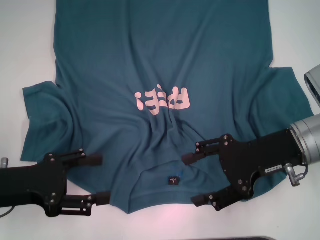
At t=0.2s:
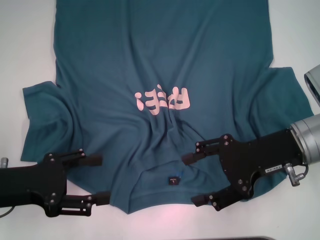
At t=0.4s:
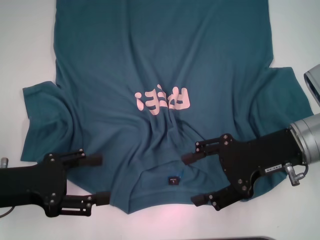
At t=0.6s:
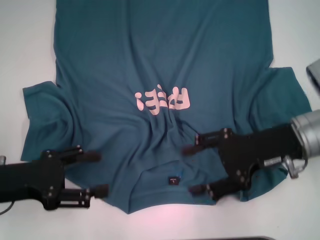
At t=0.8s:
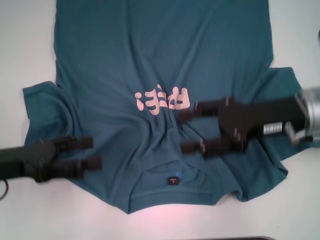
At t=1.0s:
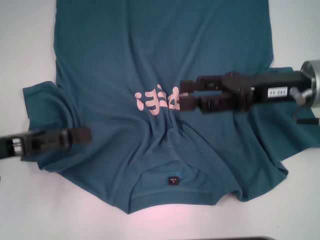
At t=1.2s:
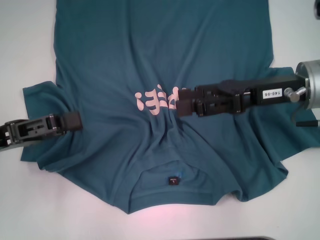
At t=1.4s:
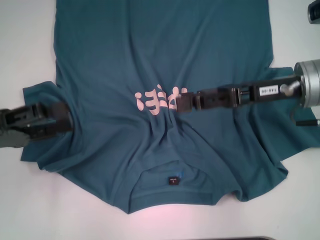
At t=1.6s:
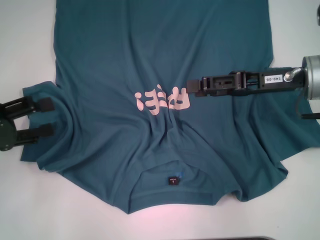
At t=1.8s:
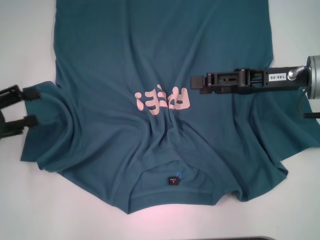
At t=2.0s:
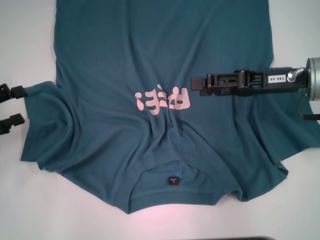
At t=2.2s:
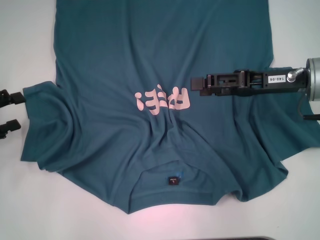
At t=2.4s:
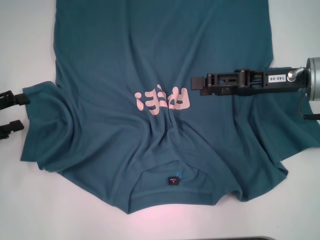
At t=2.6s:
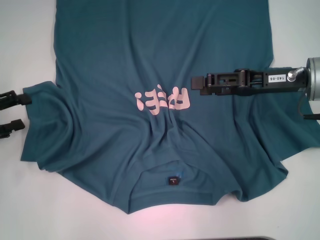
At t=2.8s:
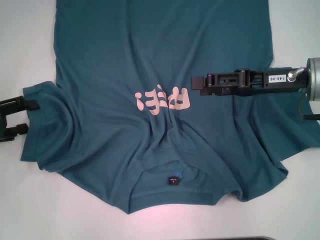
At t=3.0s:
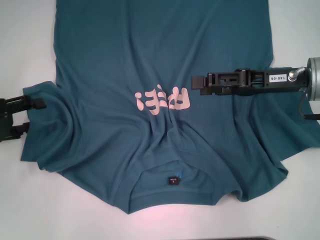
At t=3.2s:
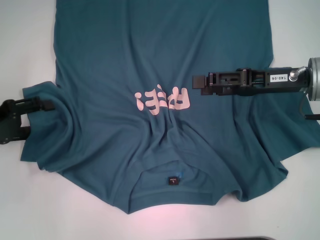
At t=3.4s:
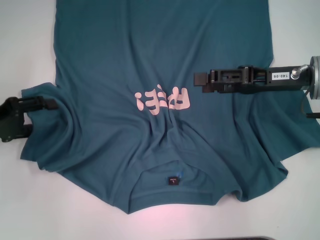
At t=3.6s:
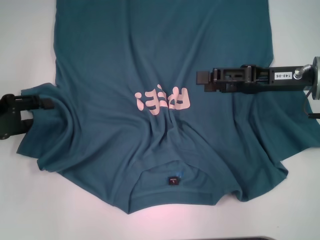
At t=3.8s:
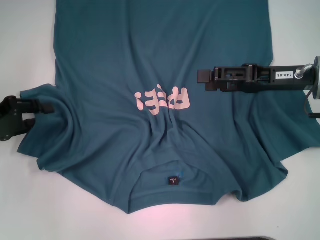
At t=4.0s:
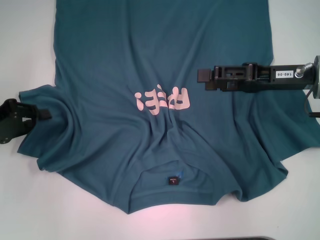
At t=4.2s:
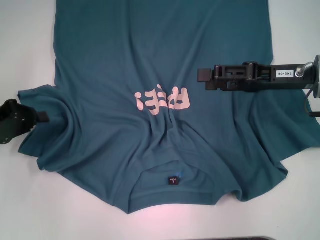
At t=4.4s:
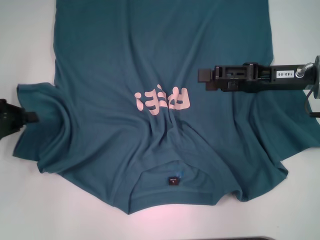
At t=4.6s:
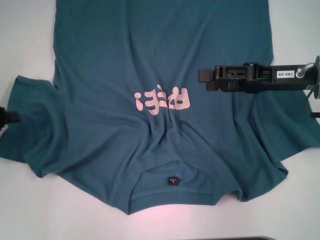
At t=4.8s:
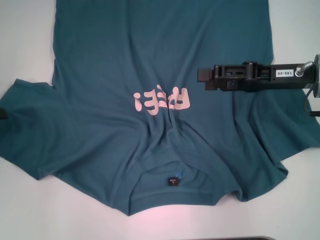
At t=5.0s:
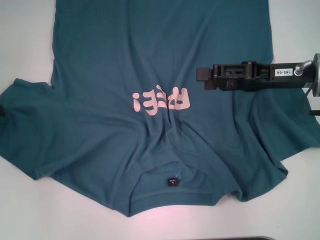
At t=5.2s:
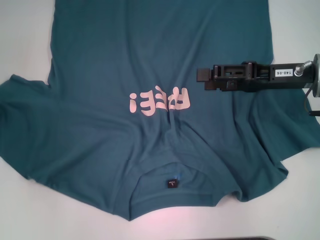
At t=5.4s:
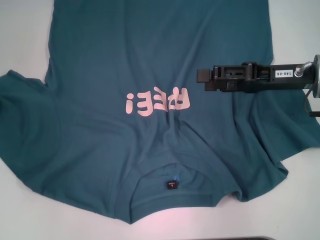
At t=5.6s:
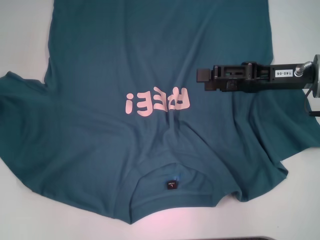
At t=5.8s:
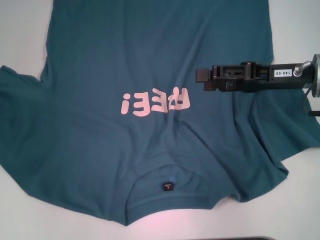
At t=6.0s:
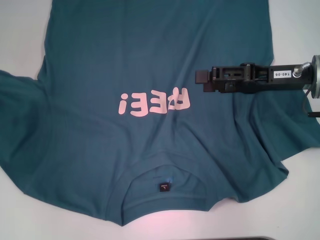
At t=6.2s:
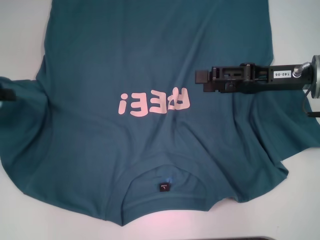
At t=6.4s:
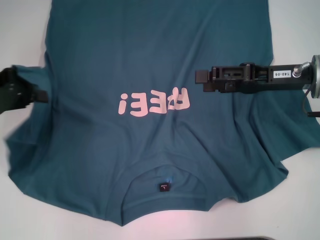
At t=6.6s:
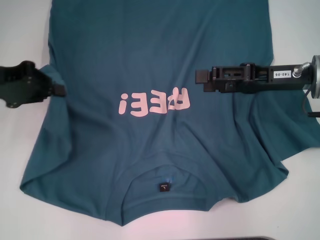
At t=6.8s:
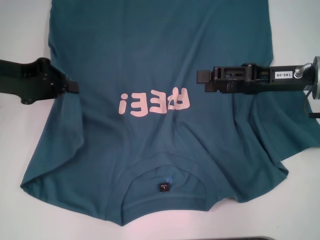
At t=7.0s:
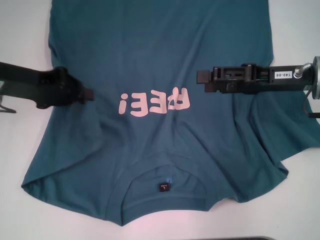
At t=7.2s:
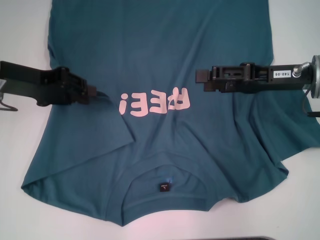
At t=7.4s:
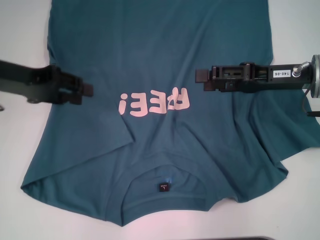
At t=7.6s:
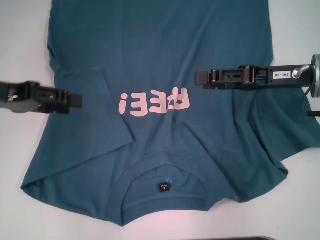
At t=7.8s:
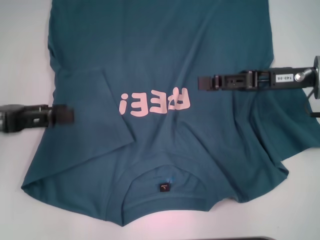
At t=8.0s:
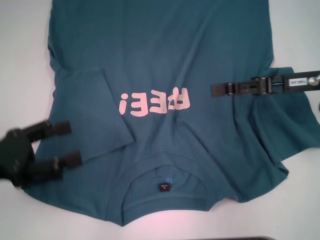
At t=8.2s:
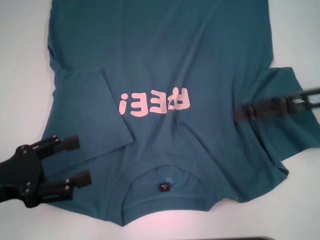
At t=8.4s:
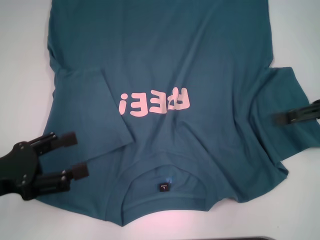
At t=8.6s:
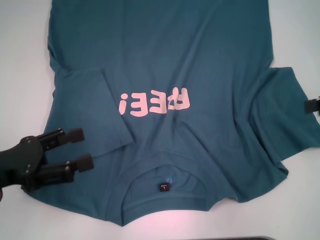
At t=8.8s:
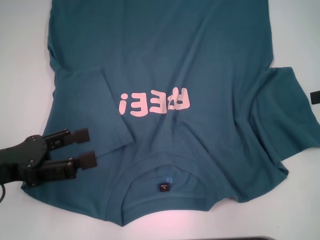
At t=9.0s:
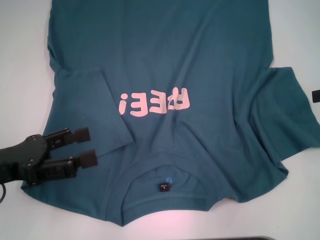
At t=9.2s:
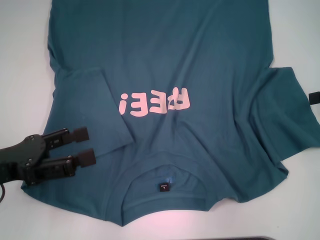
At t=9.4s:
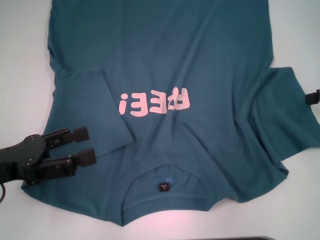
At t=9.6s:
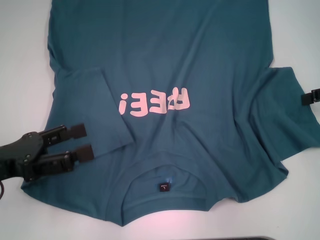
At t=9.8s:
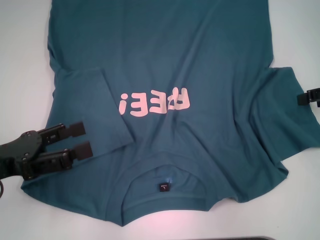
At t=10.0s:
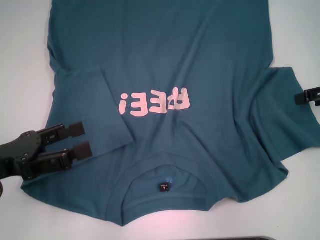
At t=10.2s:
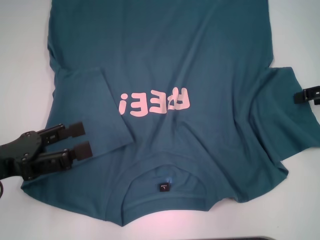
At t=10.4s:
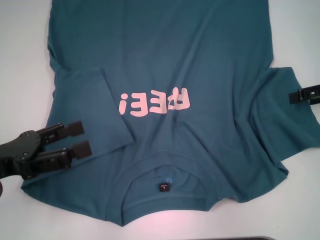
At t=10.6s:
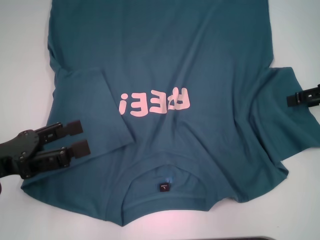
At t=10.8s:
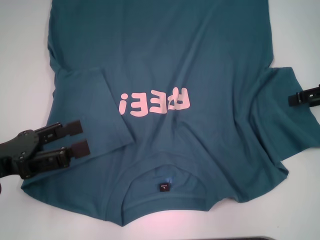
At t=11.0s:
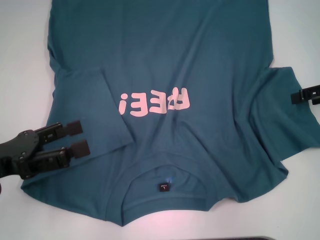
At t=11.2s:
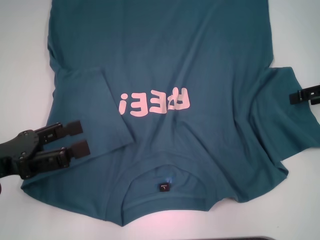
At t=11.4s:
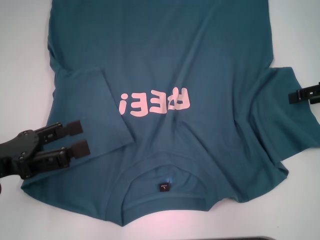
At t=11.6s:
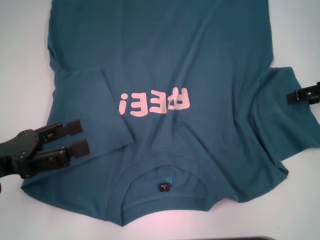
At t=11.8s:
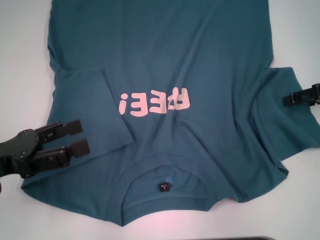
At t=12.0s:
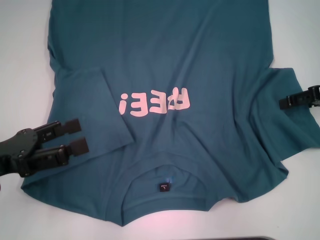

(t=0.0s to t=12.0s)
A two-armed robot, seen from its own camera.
Step, t=0.0s - t=7.2s: Fold the bottom left sleeve with your left hand.
t=0.0s - t=1.6s: The right gripper goes some 5 cm forward. The left gripper heads to the left, covering about 5 cm.
t=3.0s - t=4.4s: The left gripper closes its fingers.
t=4.4s - t=6.0s: The left gripper shifts about 10 cm upward.
t=6.0s - t=7.6s: The left gripper is displaced to the right by roughly 10 cm, and opens its fingers.
t=7.6s - t=9.0s: The left gripper travels backward and downward by about 10 cm, and opens; the right gripper moves to the right, roughly 15 cm.
t=9.0s - t=10.4s: The grippers move only a little.
t=10.4s - t=12.0s: There are only small adjustments of the grippers.

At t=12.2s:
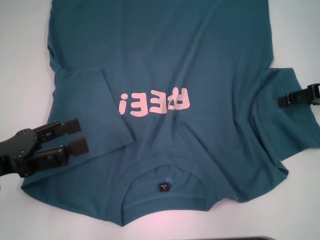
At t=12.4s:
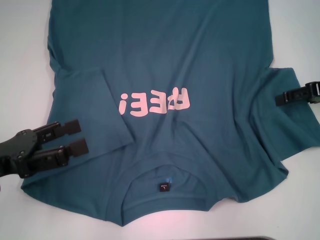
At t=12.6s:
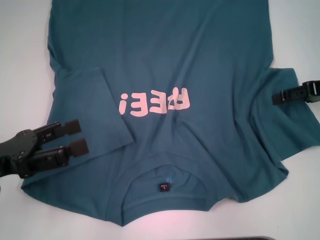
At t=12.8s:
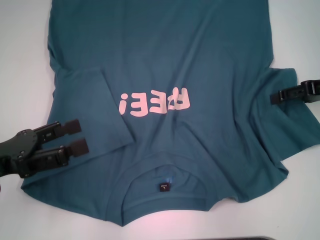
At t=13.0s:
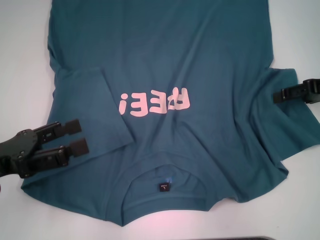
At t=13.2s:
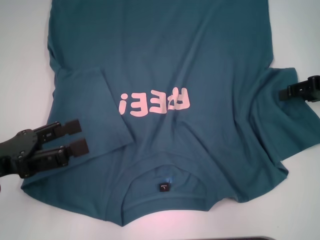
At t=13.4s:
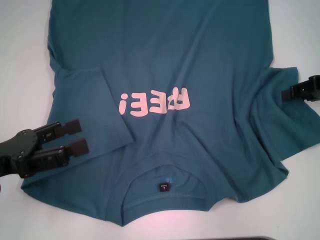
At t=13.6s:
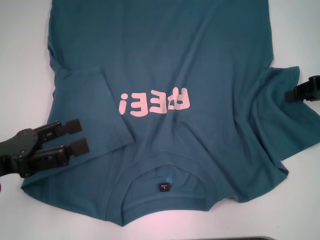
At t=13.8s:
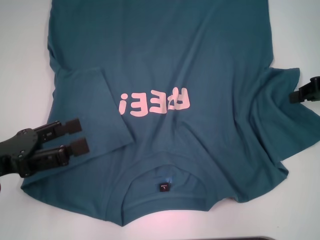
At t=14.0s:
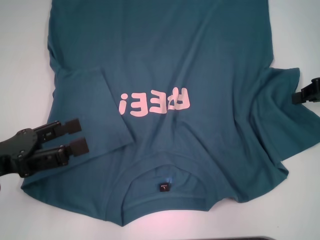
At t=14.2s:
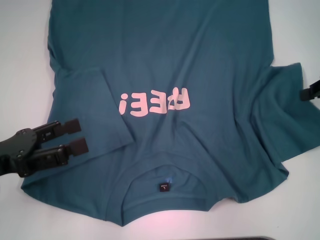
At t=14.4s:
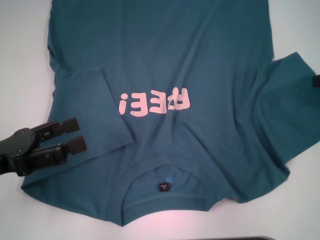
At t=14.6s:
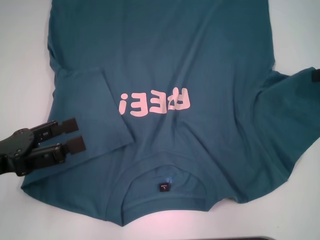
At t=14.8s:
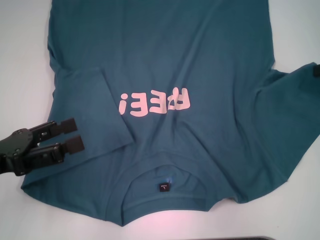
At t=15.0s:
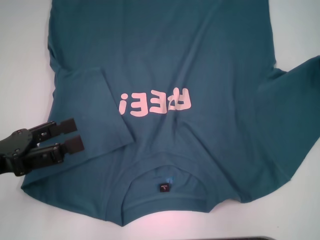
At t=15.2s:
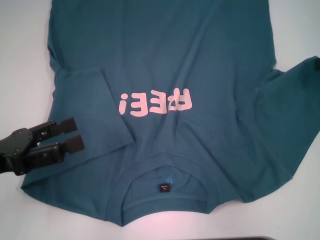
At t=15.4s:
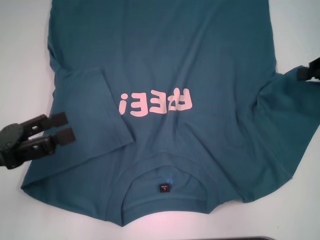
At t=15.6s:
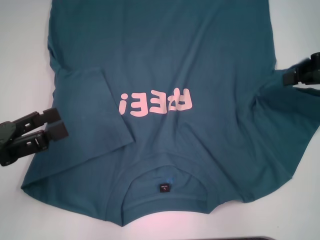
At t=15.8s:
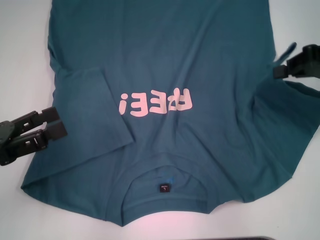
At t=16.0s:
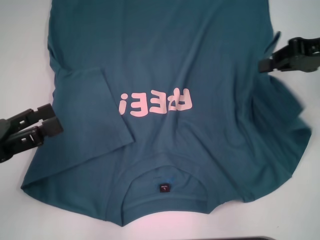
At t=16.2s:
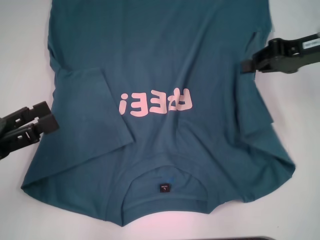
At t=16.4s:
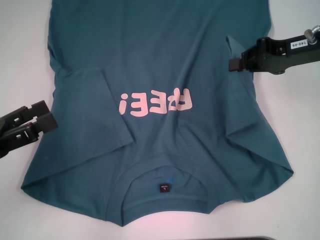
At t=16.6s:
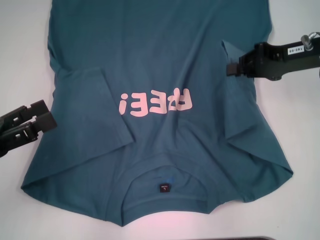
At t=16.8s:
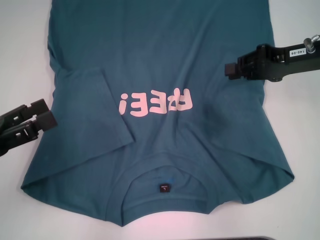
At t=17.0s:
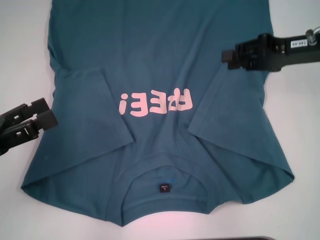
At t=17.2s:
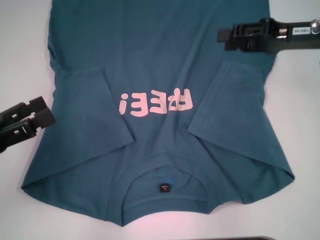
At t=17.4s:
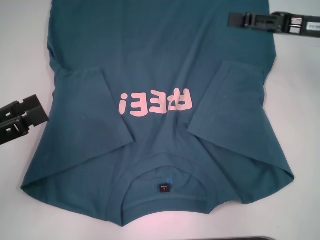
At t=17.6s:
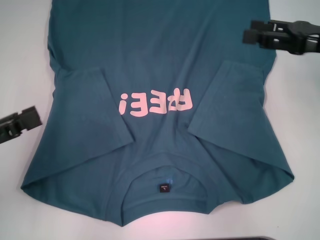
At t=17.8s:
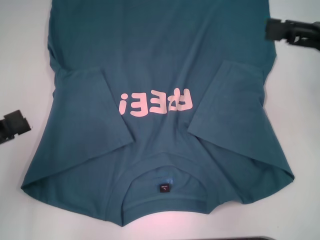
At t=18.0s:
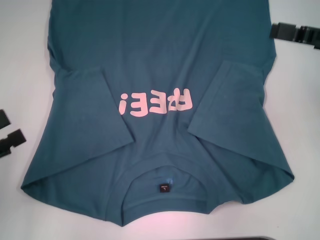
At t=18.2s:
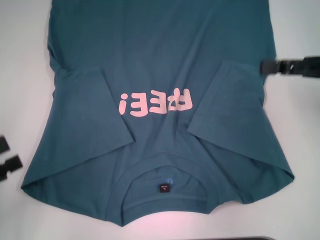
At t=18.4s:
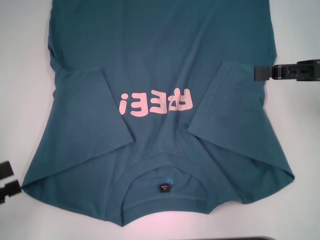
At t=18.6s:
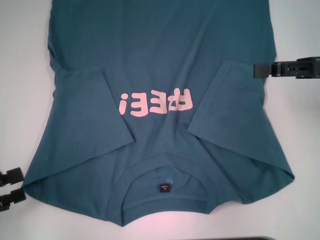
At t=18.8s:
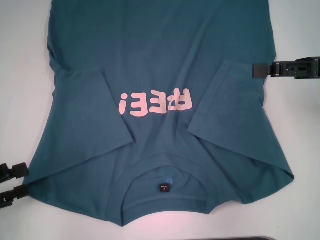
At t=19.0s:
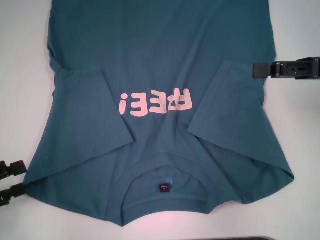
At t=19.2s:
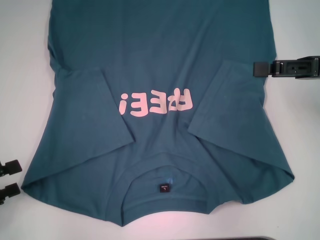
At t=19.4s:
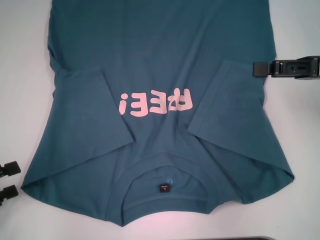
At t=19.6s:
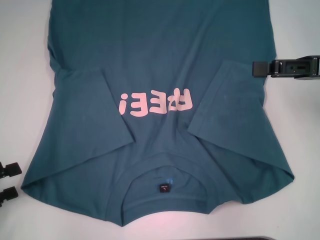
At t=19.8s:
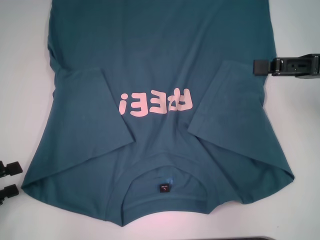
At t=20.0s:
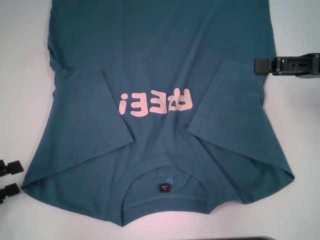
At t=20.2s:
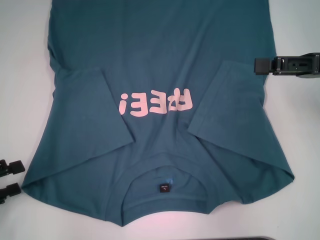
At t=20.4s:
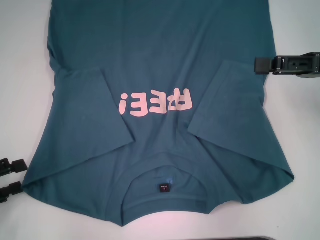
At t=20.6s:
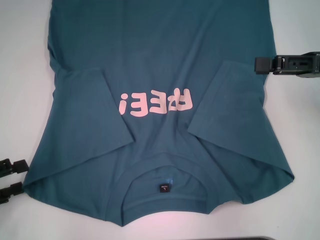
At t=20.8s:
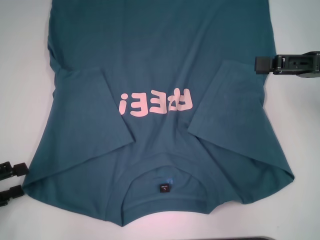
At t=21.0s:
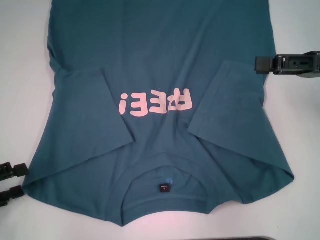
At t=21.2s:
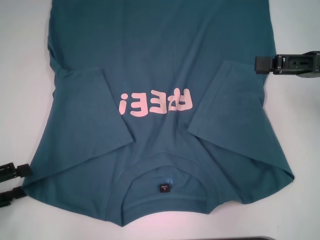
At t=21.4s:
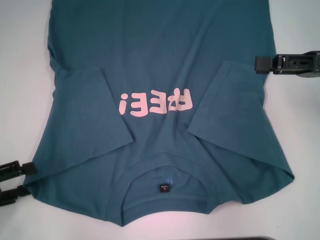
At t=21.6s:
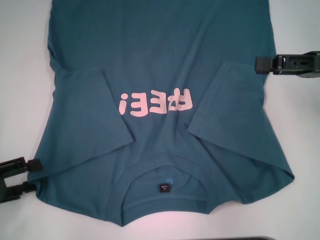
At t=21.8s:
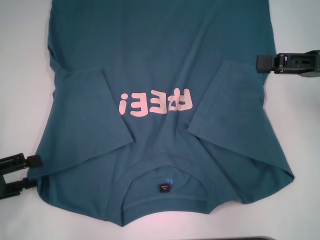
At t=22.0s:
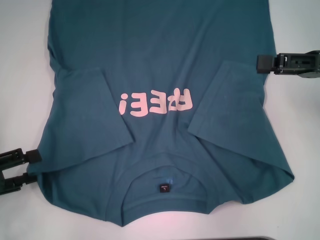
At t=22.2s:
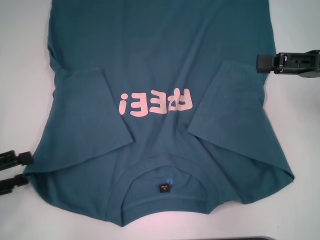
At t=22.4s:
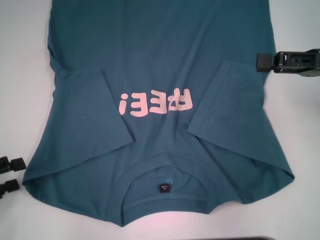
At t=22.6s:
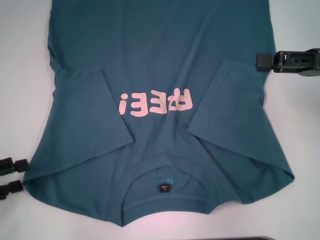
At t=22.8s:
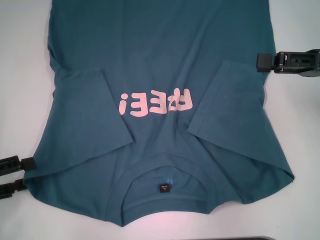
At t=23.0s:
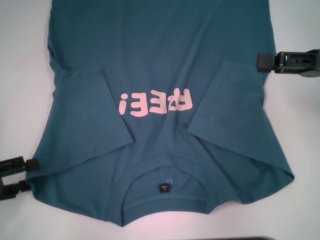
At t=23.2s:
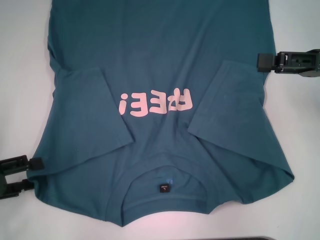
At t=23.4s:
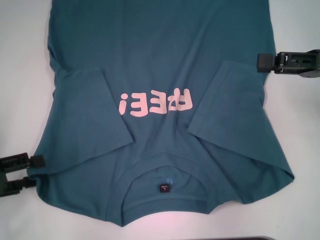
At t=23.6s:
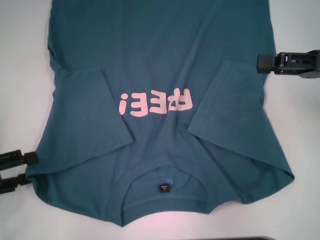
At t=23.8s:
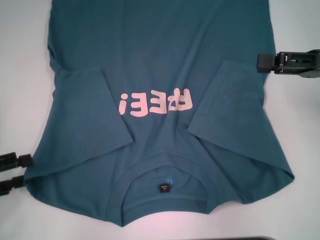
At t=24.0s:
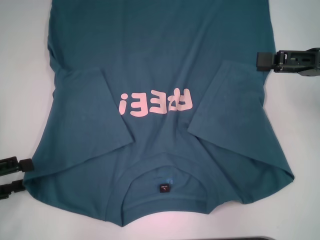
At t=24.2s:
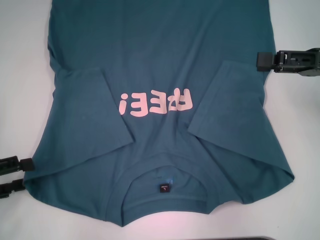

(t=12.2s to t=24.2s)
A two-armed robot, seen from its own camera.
Step, t=12.2s - t=16.8s: Fold the bottom right sleeve to the right.
t=12.2s - t=13.8s: The right gripper closes.
t=13.8s - t=15.2s: The right gripper changes place by roughly 5 cm.
t=15.2s - t=16.6s: The right gripper moves to the left, approximately 10 cm.
t=16.6s - t=18.2s: The left gripper shifts by approximately 5 cm. Meanwhile the right gripper is displaced backward and to the right by about 10 cm, and opens up.
t=19.8s - t=21.2s: The two grippers keep their place.
t=21.2s - t=22.6s: The grippers stay close to where they were, moving slightly.
